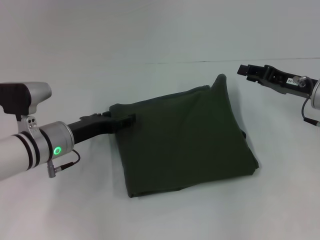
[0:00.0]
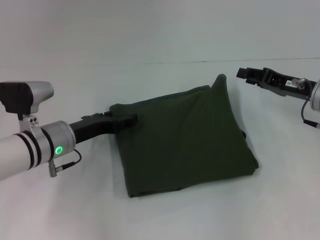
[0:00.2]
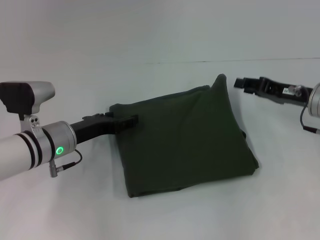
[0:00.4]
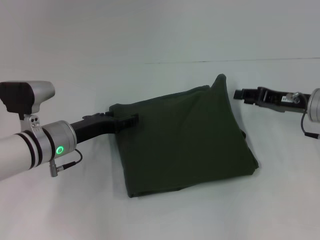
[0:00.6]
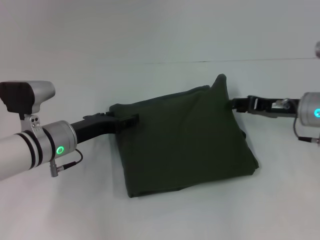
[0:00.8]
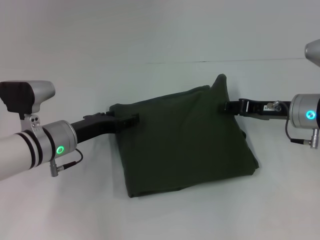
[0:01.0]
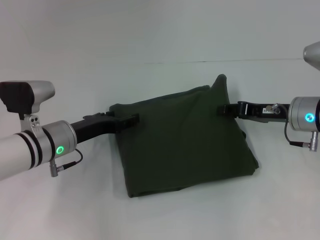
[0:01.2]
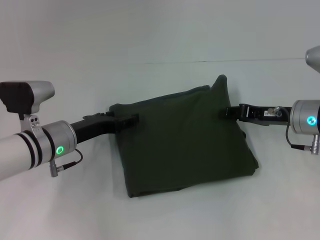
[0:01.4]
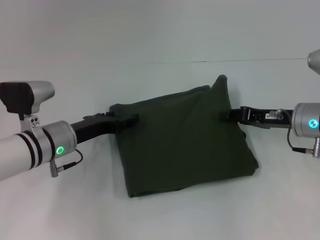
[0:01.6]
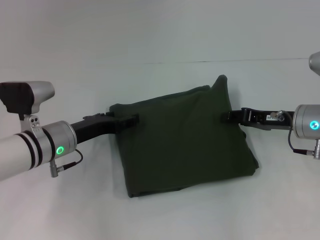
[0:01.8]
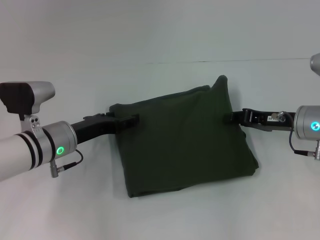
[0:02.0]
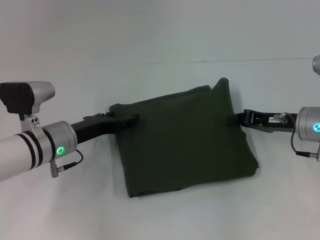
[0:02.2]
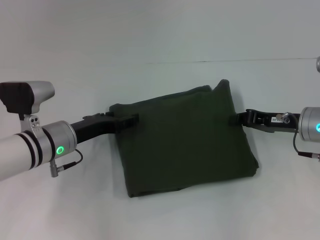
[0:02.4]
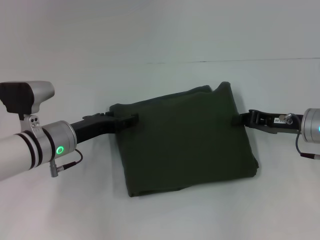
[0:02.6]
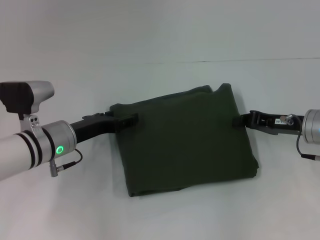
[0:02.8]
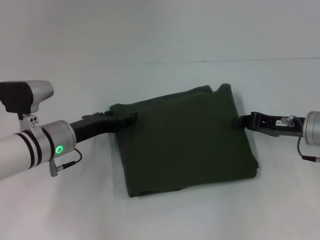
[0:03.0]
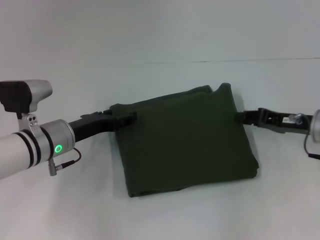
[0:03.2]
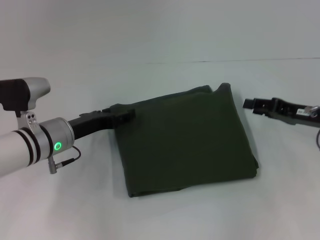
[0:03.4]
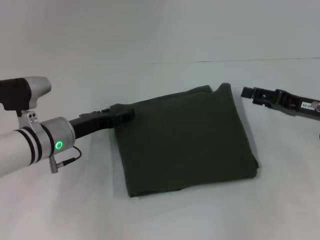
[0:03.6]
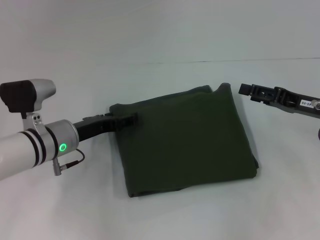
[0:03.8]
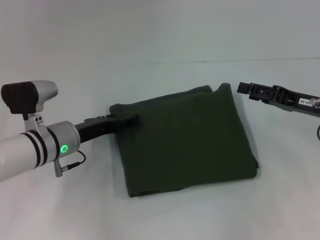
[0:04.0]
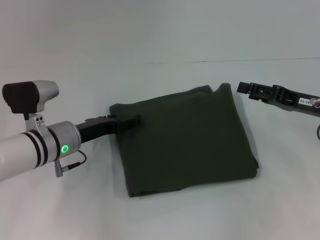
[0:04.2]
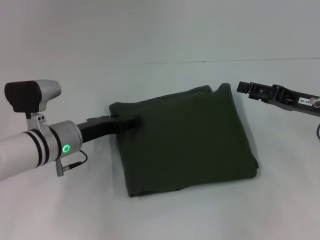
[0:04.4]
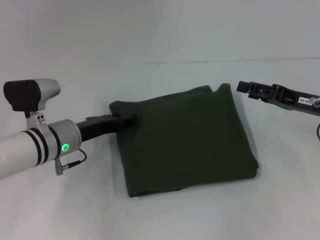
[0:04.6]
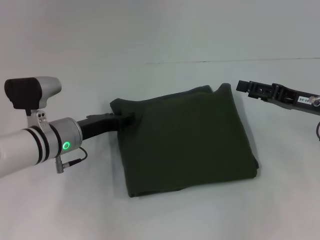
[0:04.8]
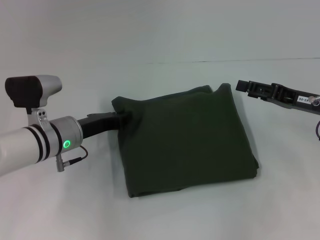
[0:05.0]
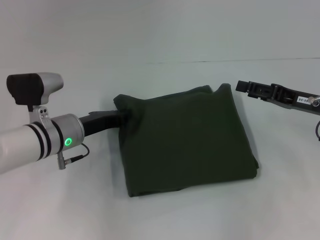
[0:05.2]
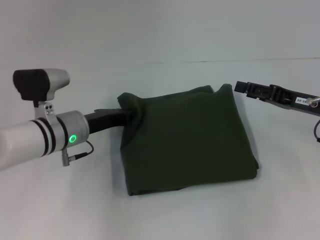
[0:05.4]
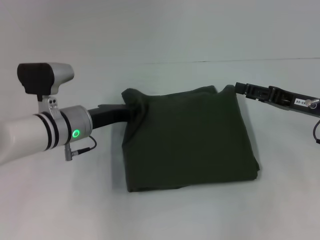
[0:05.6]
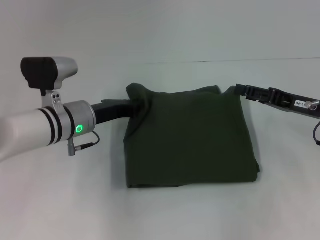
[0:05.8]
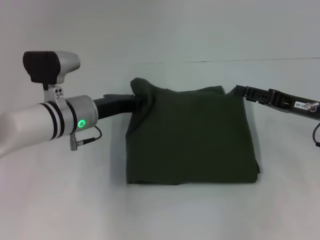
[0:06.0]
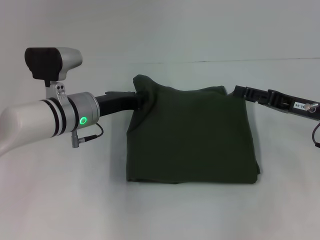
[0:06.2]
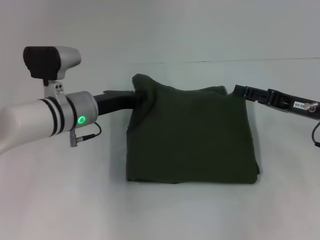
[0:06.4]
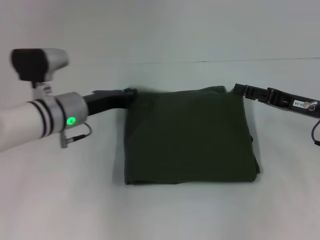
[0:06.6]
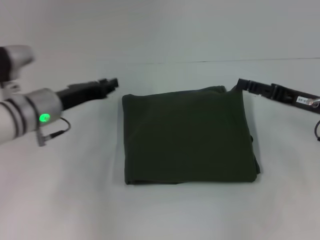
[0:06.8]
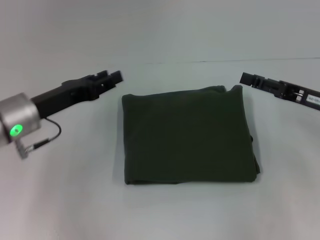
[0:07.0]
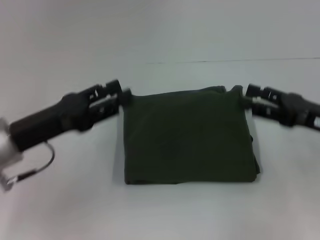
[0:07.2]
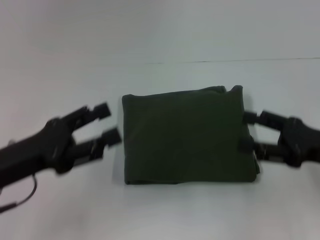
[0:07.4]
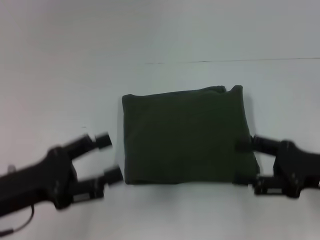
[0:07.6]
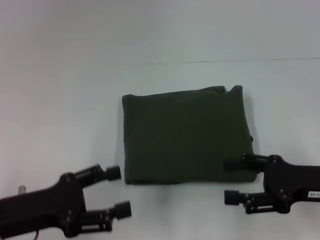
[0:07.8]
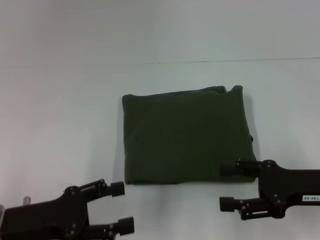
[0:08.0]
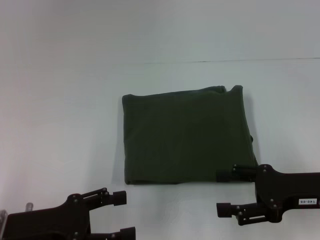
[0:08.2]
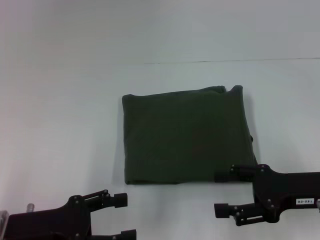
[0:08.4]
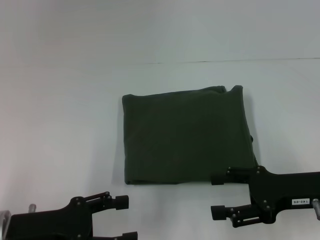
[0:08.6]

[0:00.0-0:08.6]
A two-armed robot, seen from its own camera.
0:00.0 to 0:02.8: The grippers move only a little.
0:02.8 to 0:04.4: The right gripper opens up.
0:04.4 to 0:05.8: The left gripper closes up.
0:05.8 to 0:07.2: The right gripper moves backward, approximately 5 cm. Meanwhile the left gripper shifts roughly 15 cm backward, to the left and upward, and opens up.
0:07.2 to 0:08.6: The right gripper ends up some 5 cm from where it was, while the left gripper heads backward, covering roughly 5 cm, and opens.
